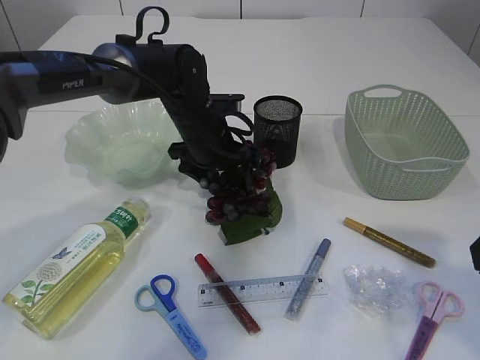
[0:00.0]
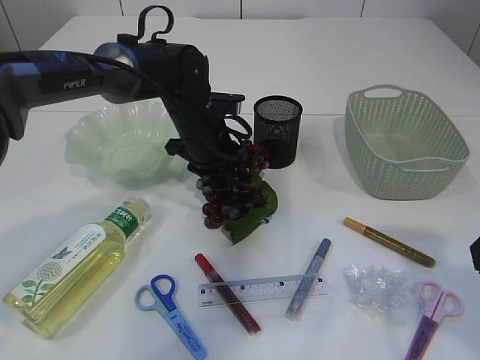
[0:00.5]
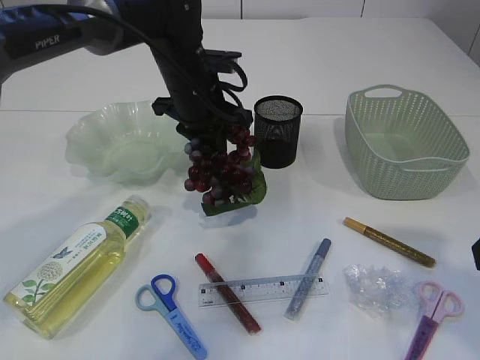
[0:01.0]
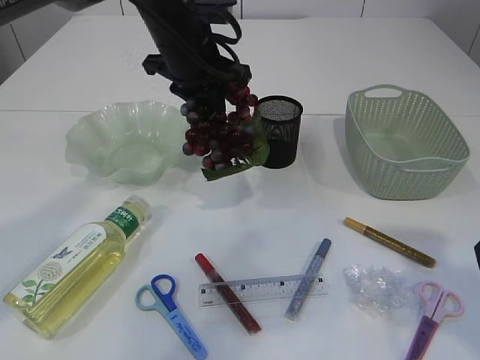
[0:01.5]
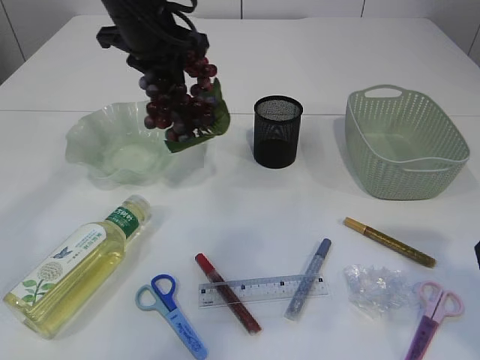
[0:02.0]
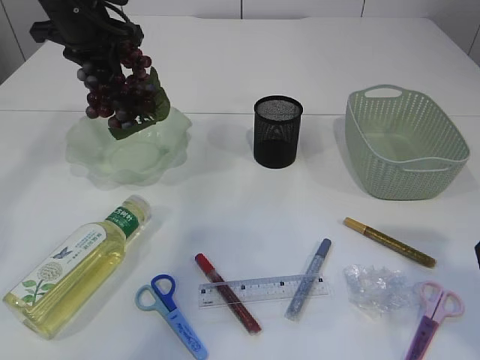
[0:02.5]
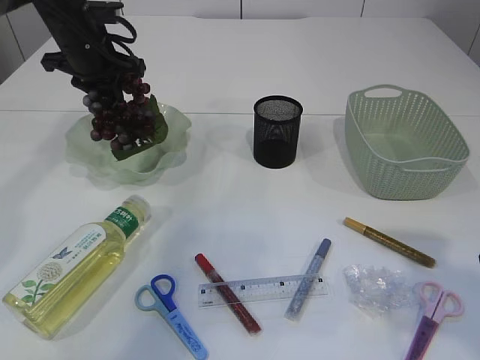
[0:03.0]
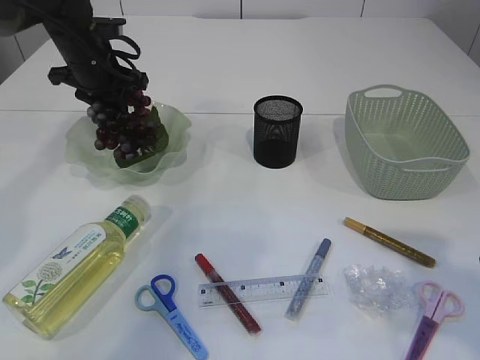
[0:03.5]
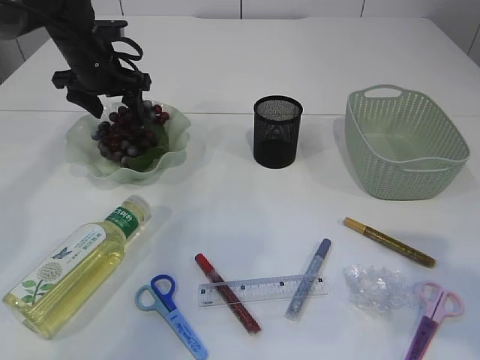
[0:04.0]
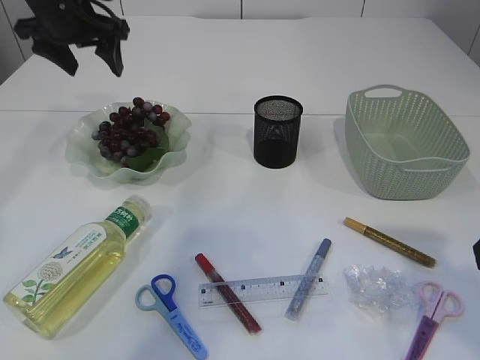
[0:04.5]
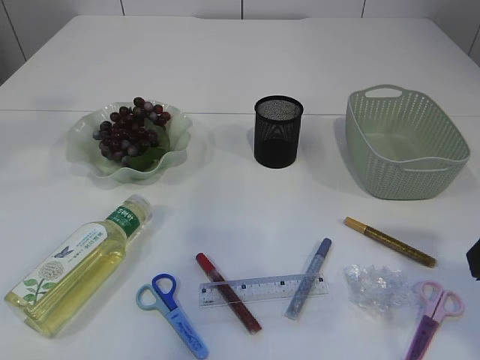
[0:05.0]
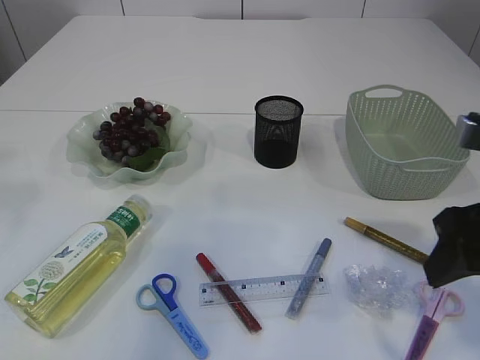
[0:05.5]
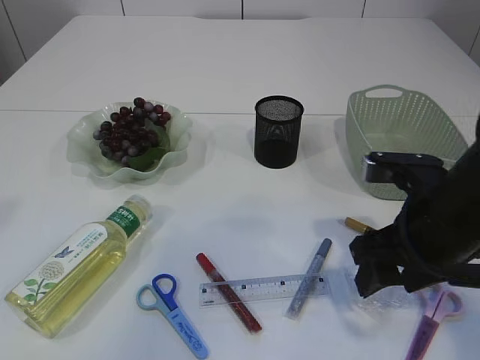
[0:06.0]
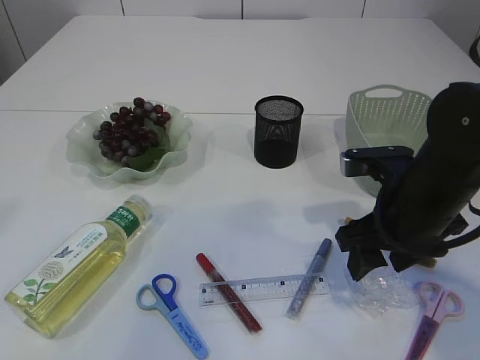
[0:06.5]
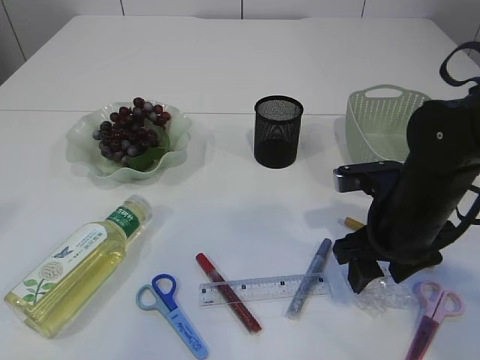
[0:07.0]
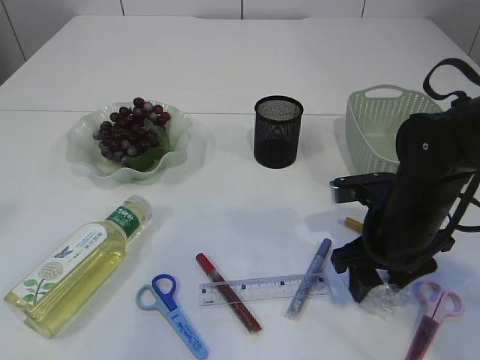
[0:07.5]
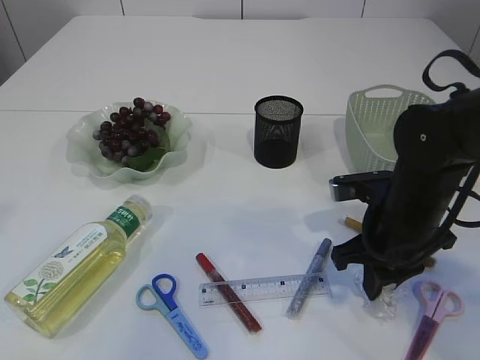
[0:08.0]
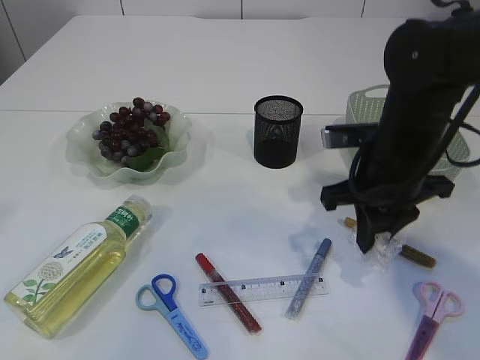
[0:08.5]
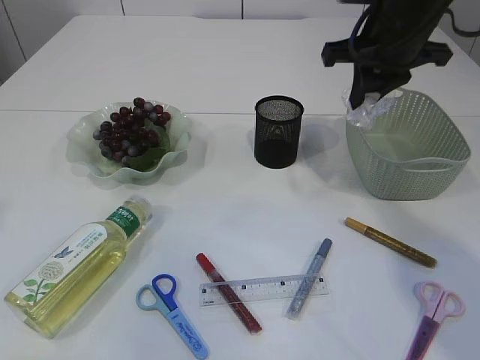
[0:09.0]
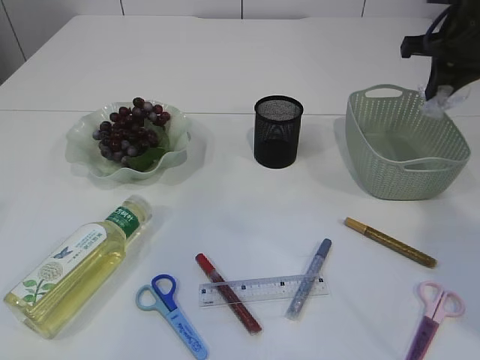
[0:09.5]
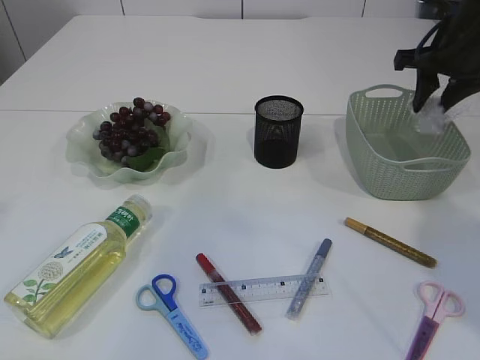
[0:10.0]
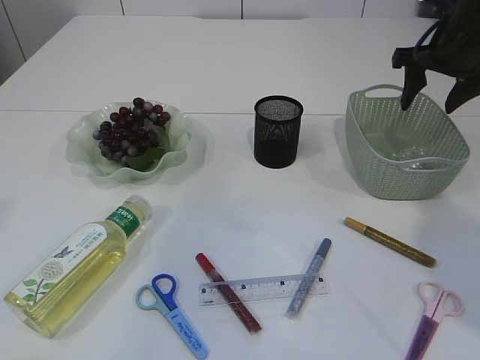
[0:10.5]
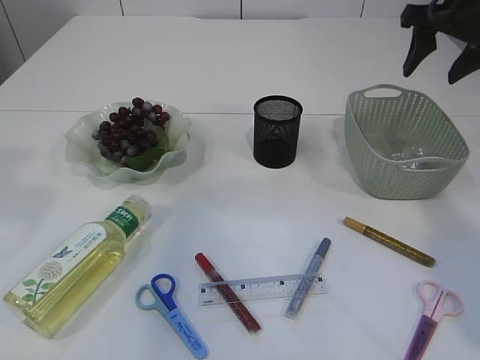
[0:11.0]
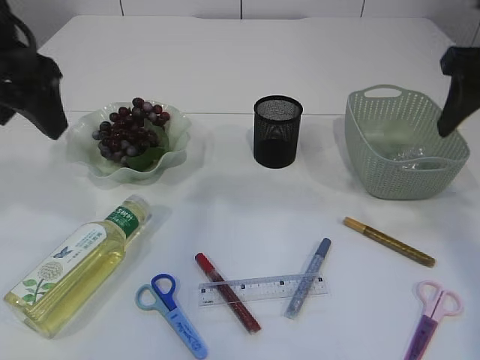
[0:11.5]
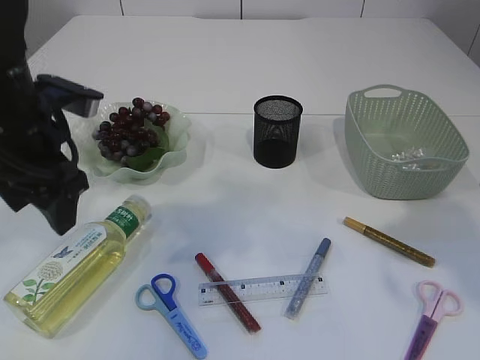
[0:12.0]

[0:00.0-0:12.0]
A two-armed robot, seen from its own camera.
Step, 0:01.5 to 0:04.0: Place the grapes in the plate.
Step, 0:04.5 to 0:08.5: Pick up the plastic.
Step, 0:09.0 to 0:10.5: Place the plastic in the basket.
0:00.0 to 0:02.0: The left gripper shifts roughly 15 cm upward, and closes its fingers.
0:02.0 to 0:04.0: The left gripper goes about 15 cm to the left, downward and forward, and opens.
0:04.0 to 0:06.0: The left gripper heads backward and upward, covering roughly 40 cm. The right gripper goes some 15 cm downward, forward and to the left.
0:06.0 to 0:08.0: The right gripper goes roughly 10 cm downward and forward, and closes its fingers.
0:08.0 to 0:10.0: The right gripper goes approximately 25 cm forward, upward and to the right, and opens.
0:10.0 to 0:12.0: The right gripper travels backward by some 20 cm, and opens its fingers. The left gripper is displaced downward and forward by some 25 cm.

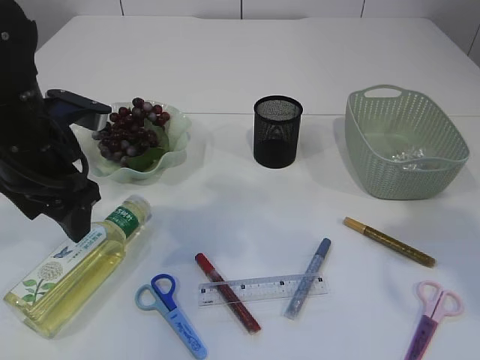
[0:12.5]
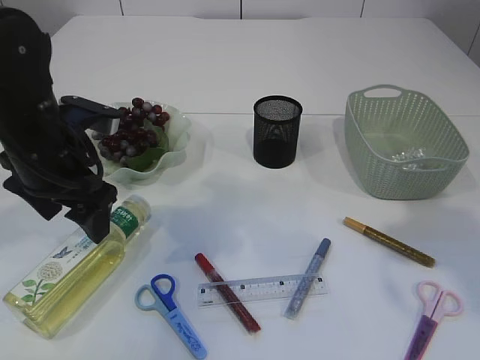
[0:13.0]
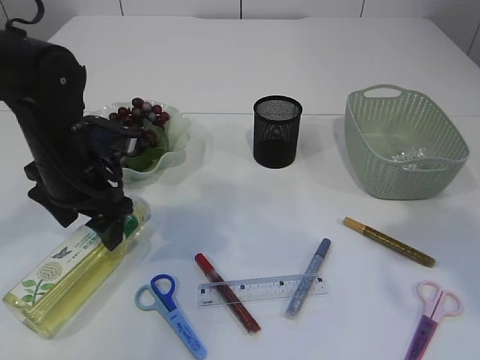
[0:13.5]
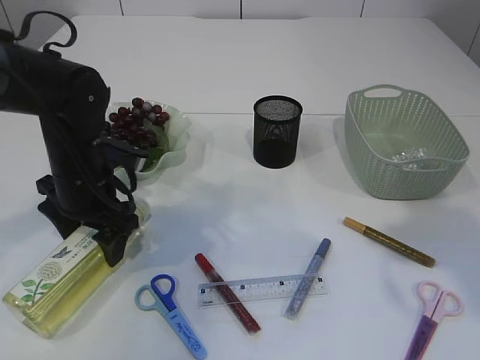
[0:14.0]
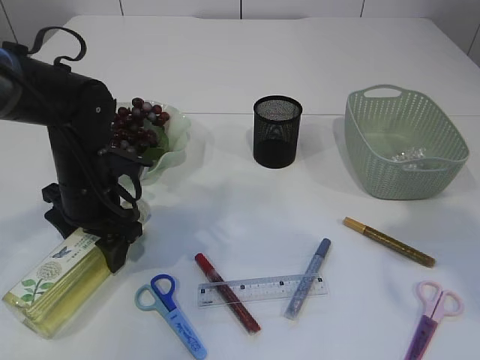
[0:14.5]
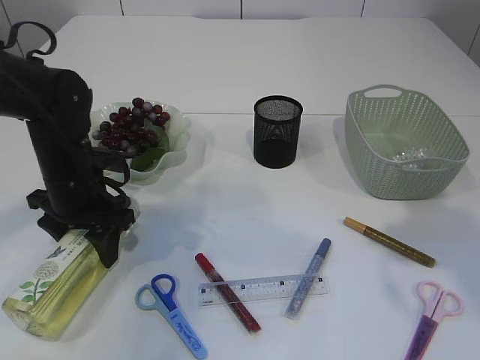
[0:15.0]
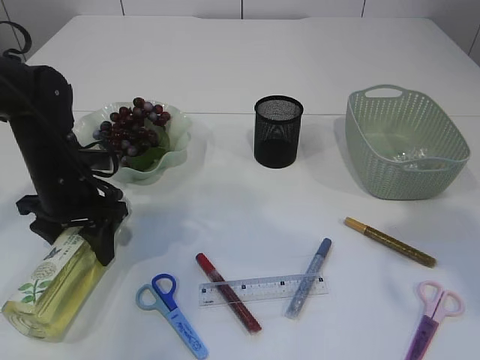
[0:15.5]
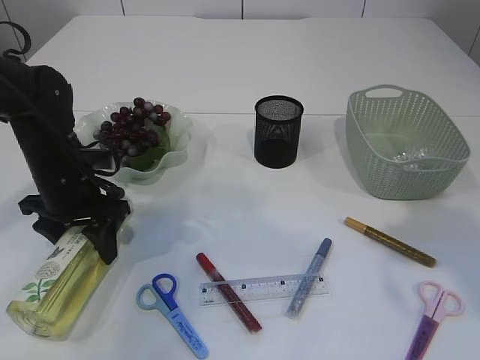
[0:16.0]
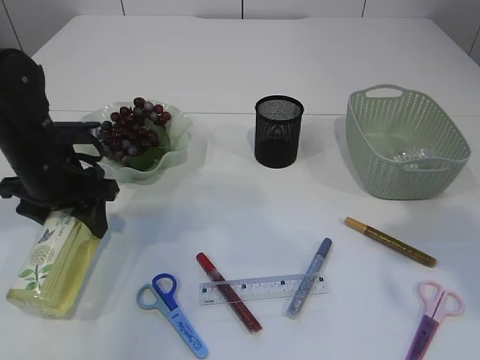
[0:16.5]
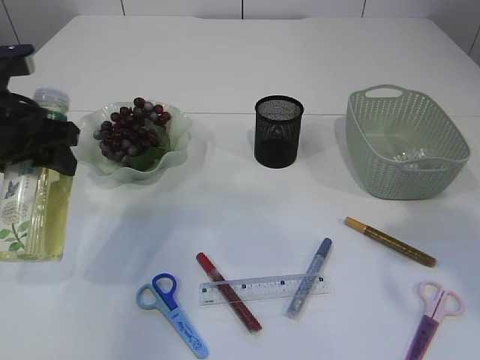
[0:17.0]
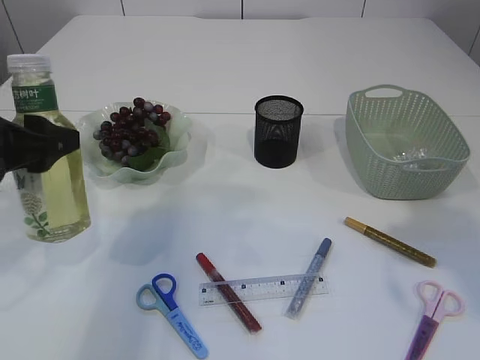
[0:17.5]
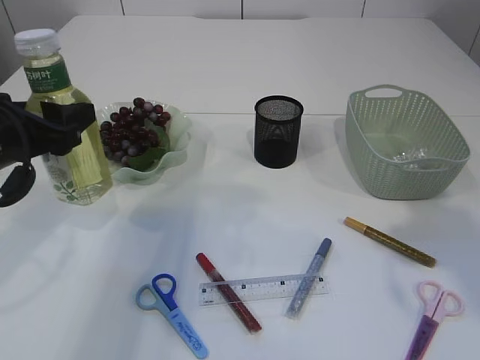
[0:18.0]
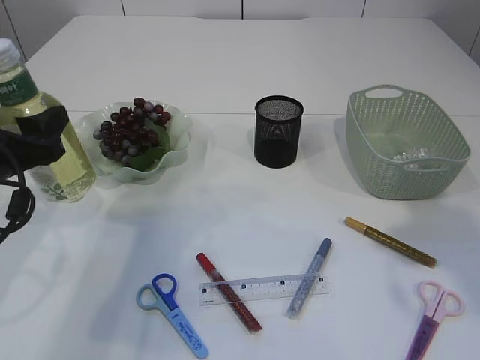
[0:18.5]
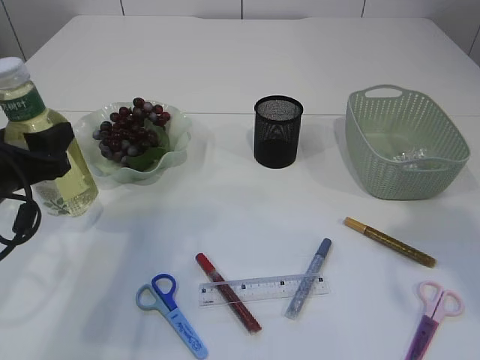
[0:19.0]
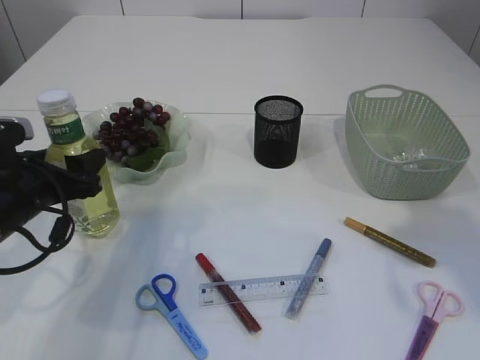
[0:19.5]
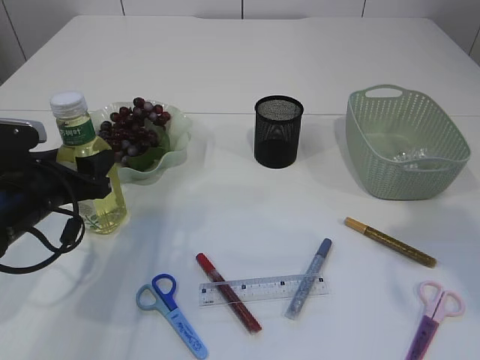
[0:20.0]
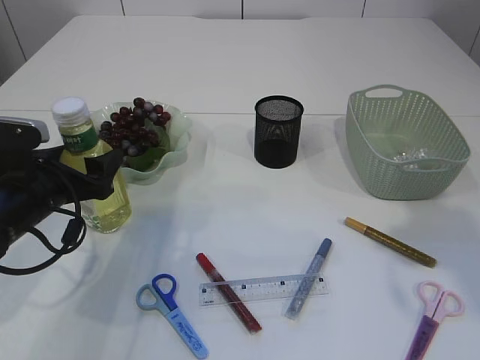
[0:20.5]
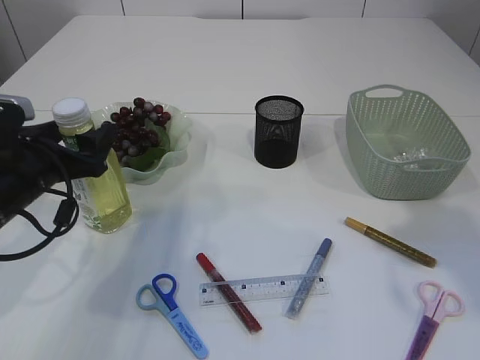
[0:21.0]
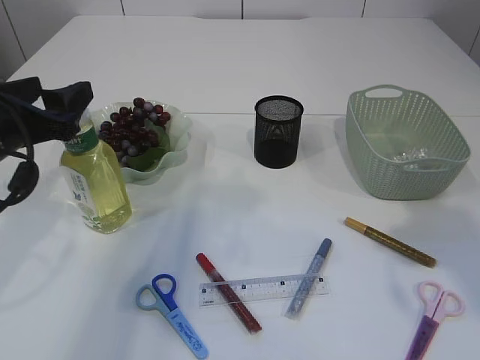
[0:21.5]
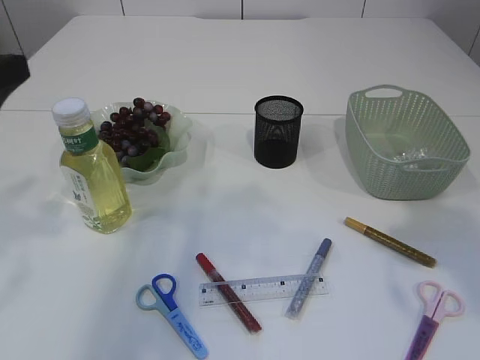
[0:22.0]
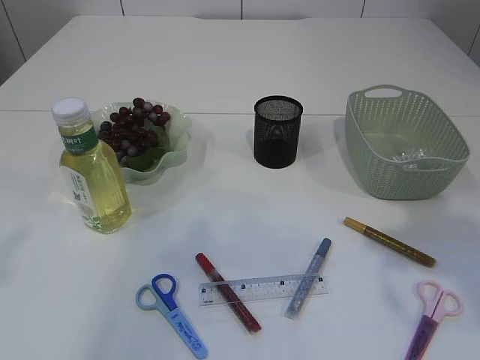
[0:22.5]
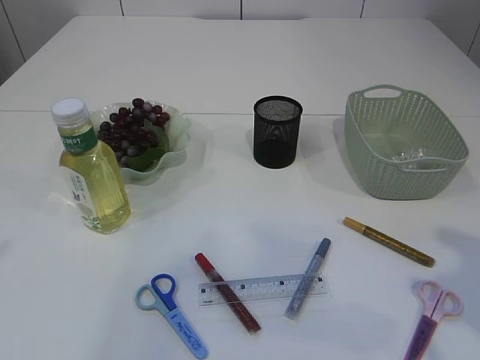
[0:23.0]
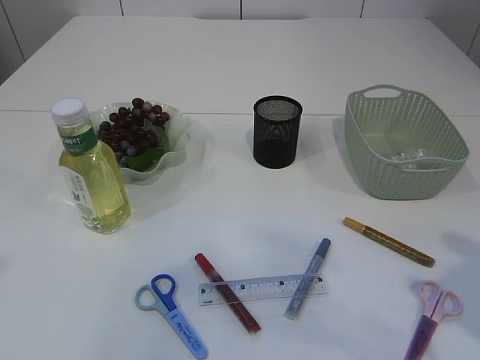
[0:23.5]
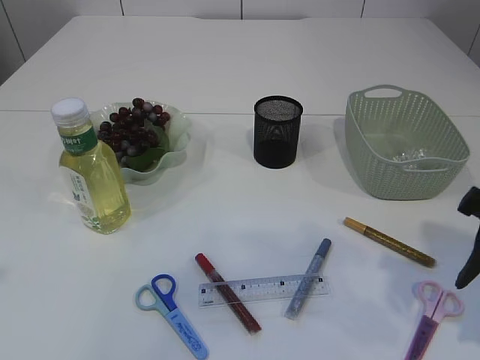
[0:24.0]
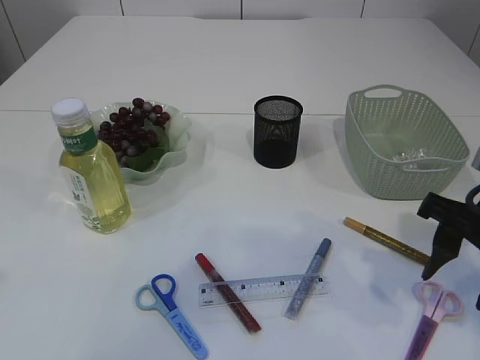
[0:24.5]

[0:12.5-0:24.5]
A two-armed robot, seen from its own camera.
Step, 0:12.5 to 0:16.5: Pick up the bottle with the left arm.
Step, 0:17.0 to 0:21.5: Place the bottle.
0:12.5 to 0:14.5: The left gripper moves downward, about 10 cm.
0:14.5 to 0:16.5: The left gripper changes place by roughly 5 cm.
0:16.5 to 0:18.5: The left gripper shifts about 10 cm backward.
0:18.5 to 0:20.5: The left gripper goes roughly 5 cm downward.
0:20.5 to 0:22.5: The left gripper shifts some 25 cm upward and backward.
0:22.5 to 0:24.5: The right gripper heads downward, covering some 10 cm.

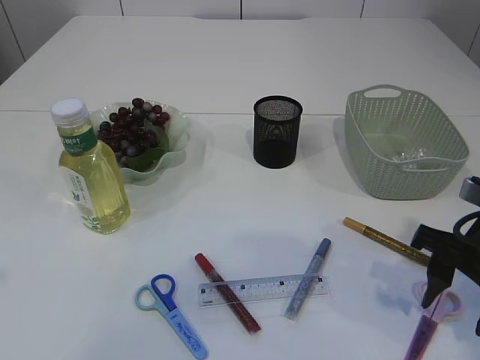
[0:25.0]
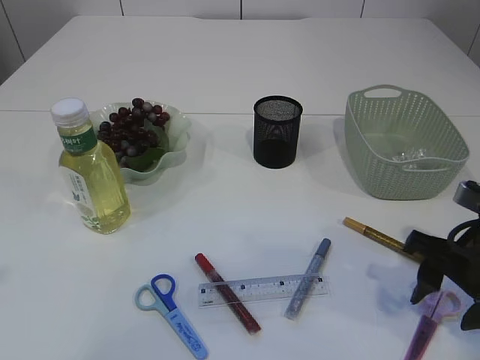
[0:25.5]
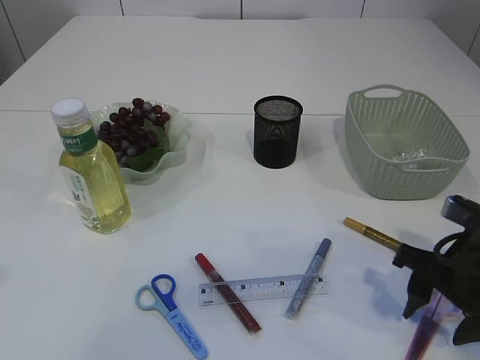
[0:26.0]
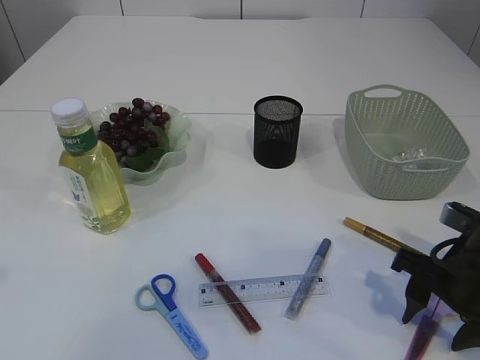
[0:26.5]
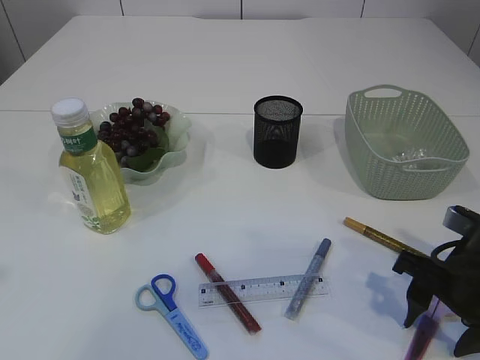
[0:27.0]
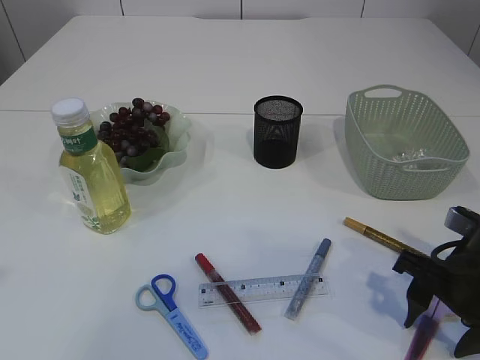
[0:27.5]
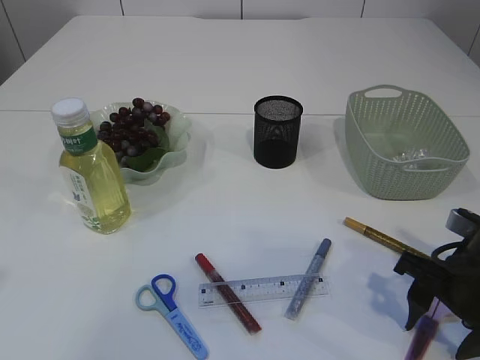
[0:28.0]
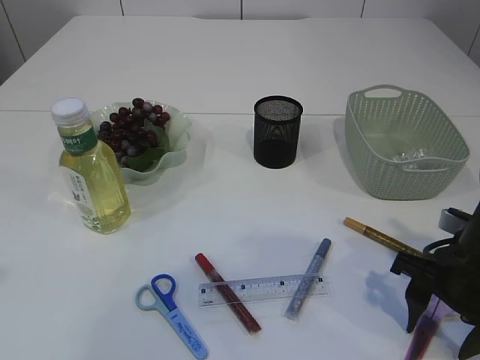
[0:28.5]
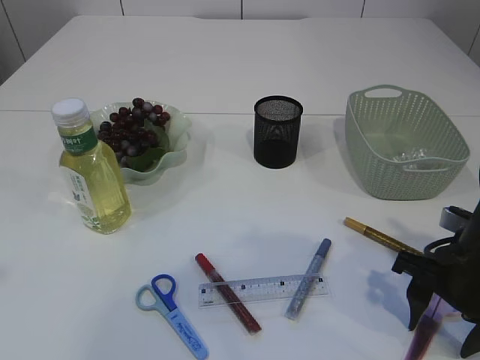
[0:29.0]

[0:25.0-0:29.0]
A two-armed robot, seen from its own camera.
0:25.0 to 0:29.0: The grippers make only small movements.
